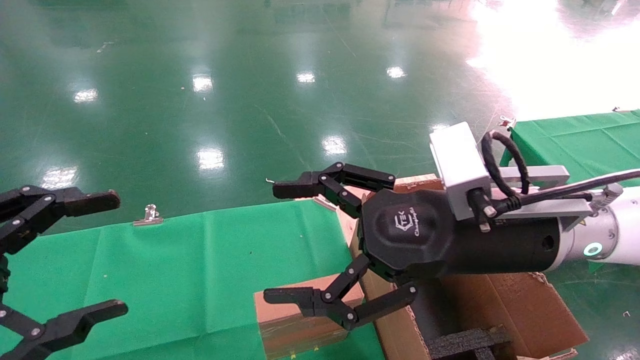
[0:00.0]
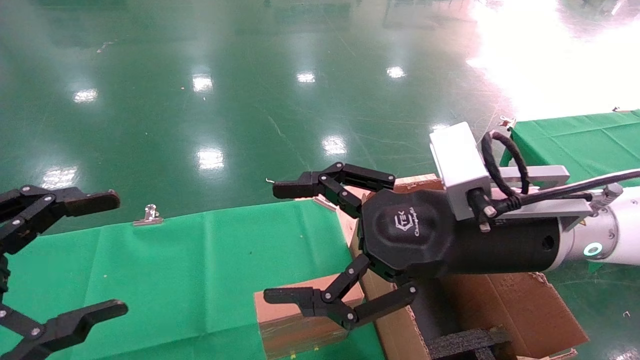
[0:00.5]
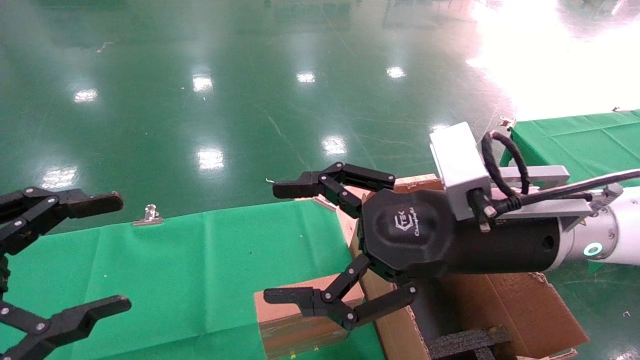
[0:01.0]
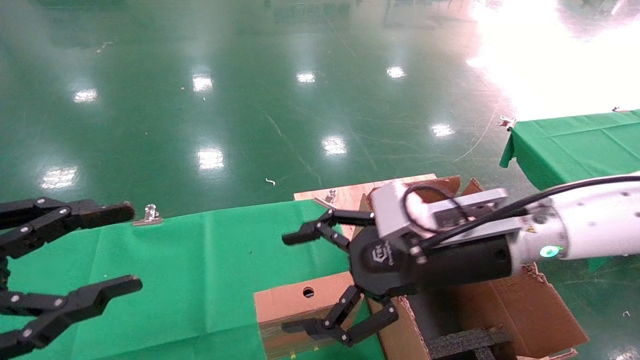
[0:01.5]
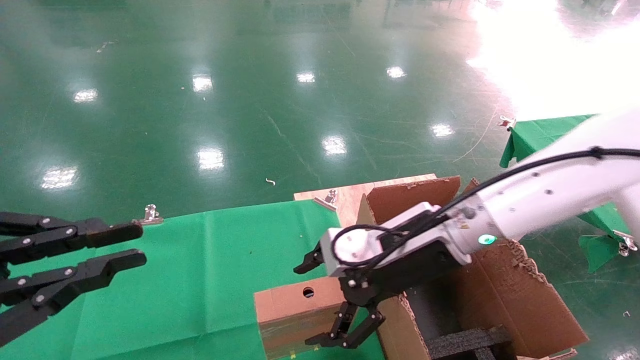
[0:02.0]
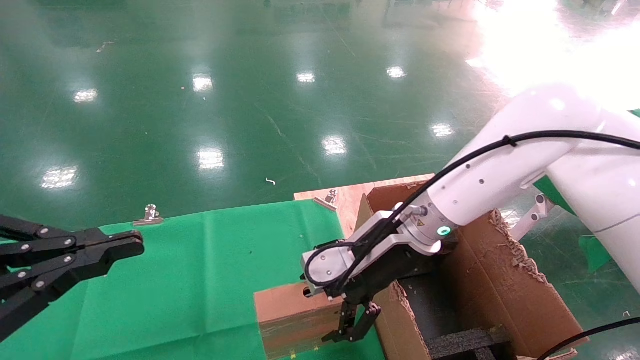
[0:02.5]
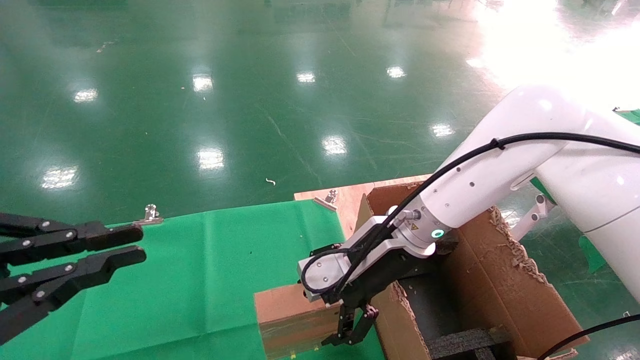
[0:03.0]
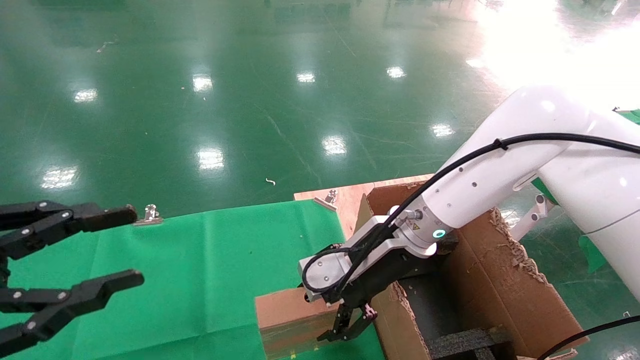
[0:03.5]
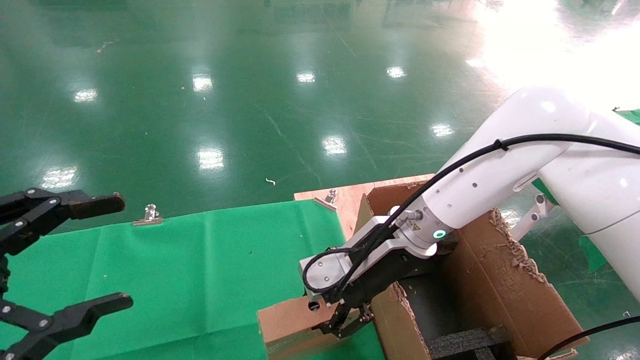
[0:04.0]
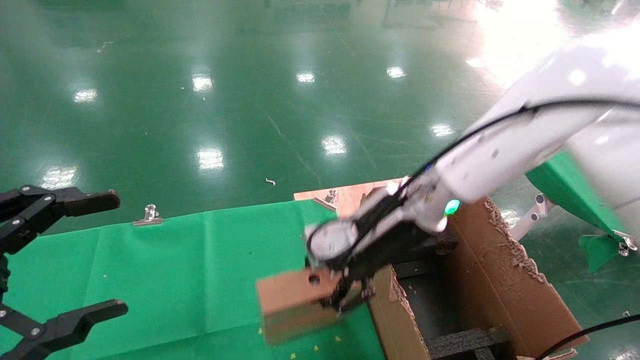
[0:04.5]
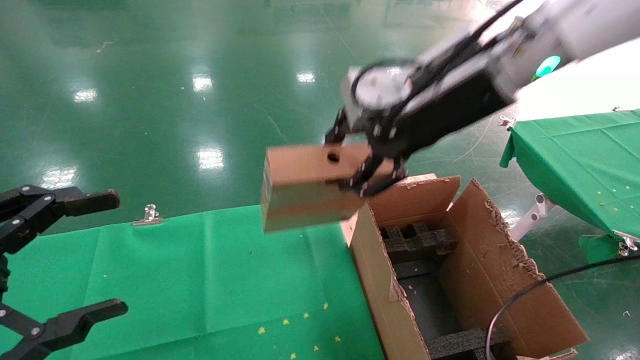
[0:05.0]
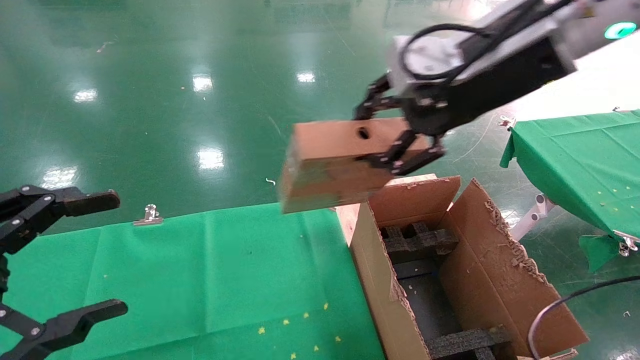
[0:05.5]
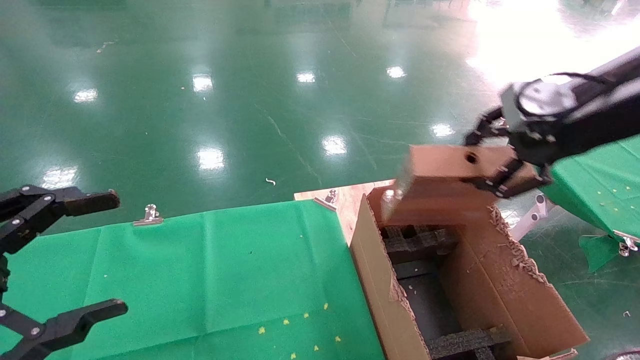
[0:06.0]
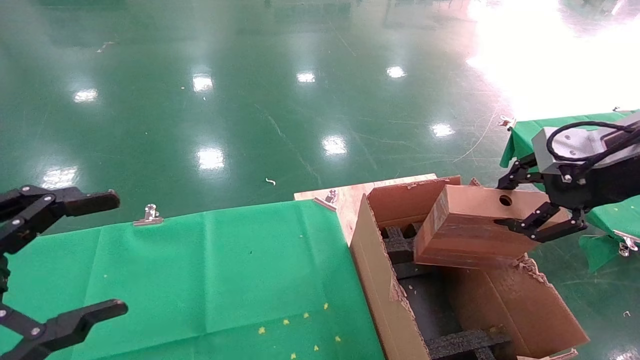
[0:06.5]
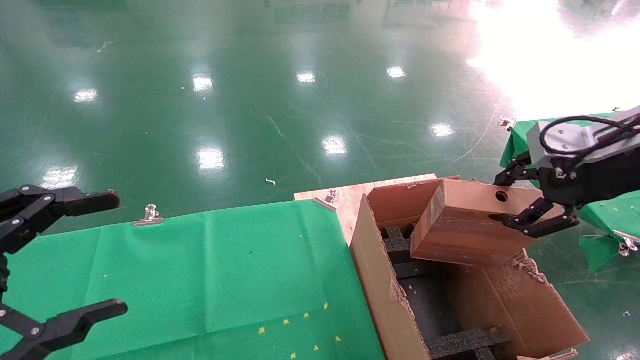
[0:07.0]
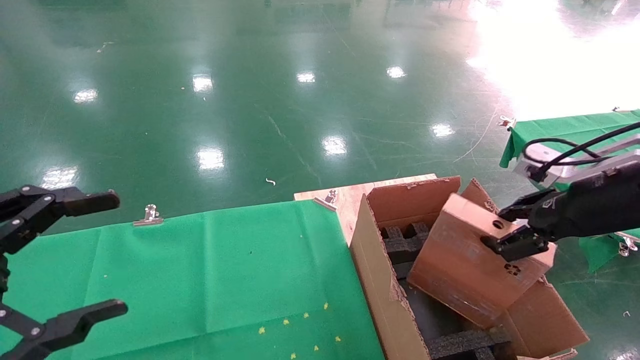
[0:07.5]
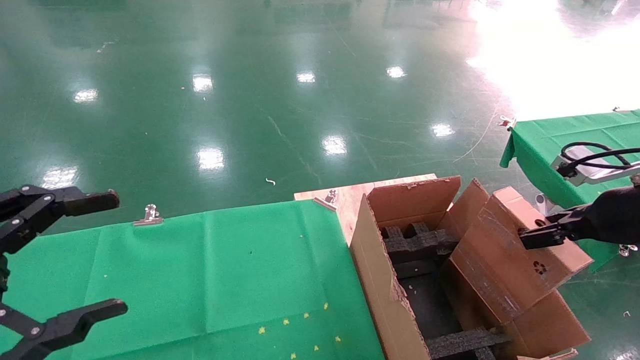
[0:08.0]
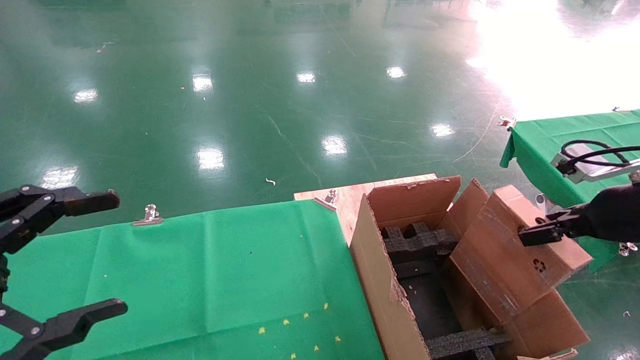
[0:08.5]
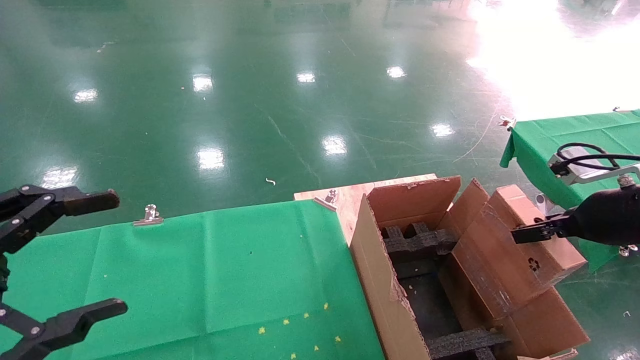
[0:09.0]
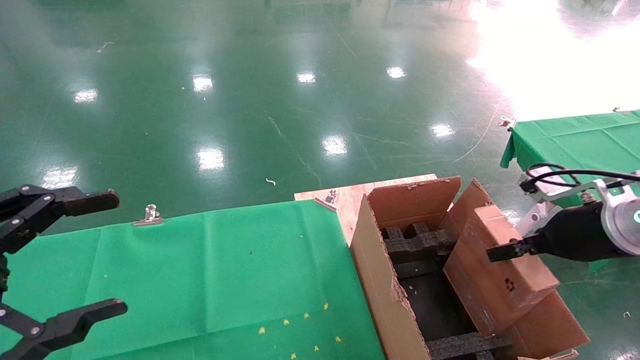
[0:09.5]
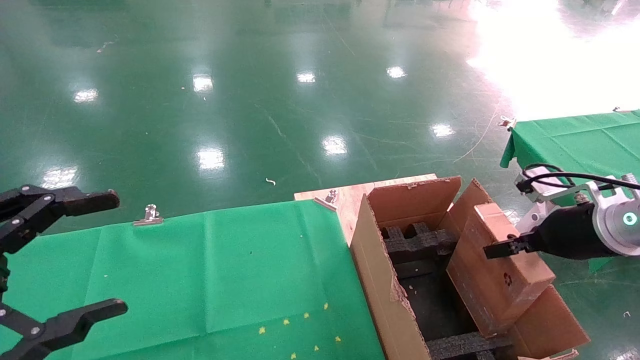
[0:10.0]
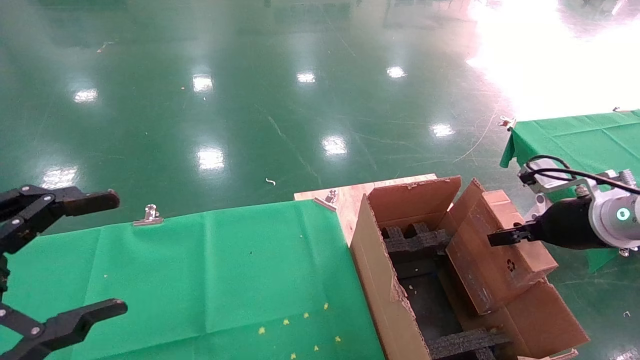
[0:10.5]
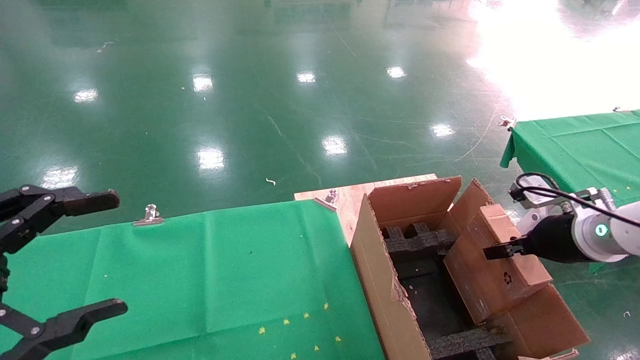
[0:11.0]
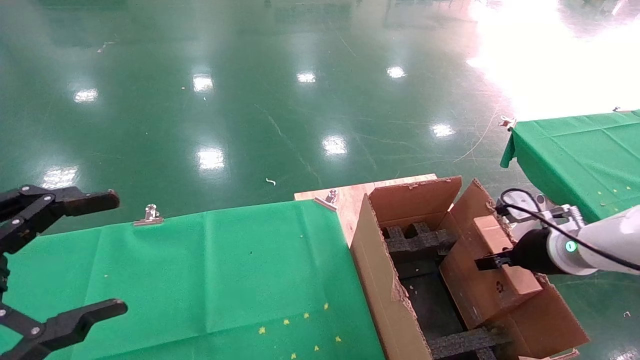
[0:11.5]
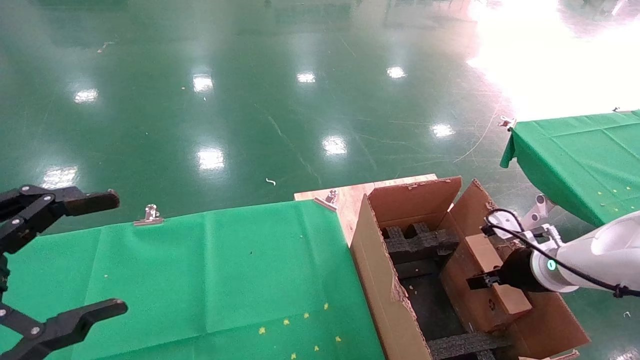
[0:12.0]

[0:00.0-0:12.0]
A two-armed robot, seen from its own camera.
Task of the whole recording: using a robotic arm to pick up a cardboard box and palace it the carton.
Step, 0:01.5 to 0:04.5: Pick up the mouse and the power cord paper box.
0:00.0 to 0:02.0: The right gripper shifts roughly 10 cm forward and downward. The left gripper closes up.
0:02.0 to 0:04.0: The right gripper closes up, while the left gripper opens its fingers.
0:04.0 to 0:06.0: The right gripper shifts roughly 30 cm to the right and upward.
0:06.0 to 0:08.0: The right gripper heads downward and to the right, covering about 15 cm.
0:08.0 to 0:10.0: The right gripper moves roughly 5 cm.
0:10.0 to 0:12.0: The right gripper is displaced downward by about 10 cm.

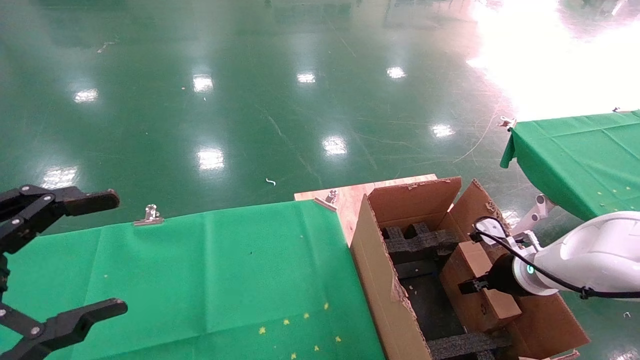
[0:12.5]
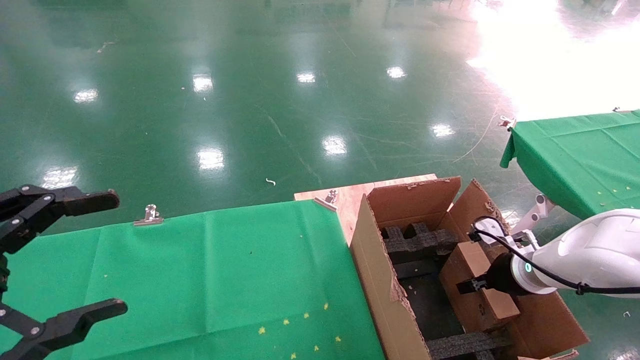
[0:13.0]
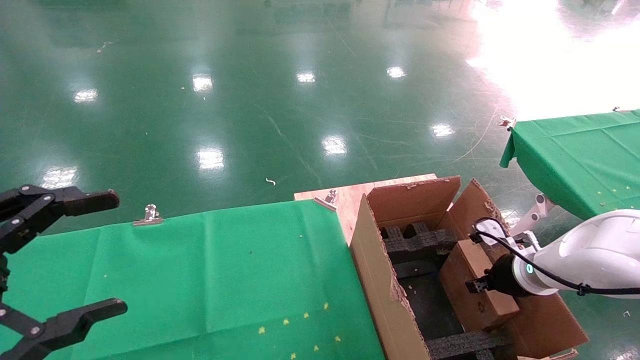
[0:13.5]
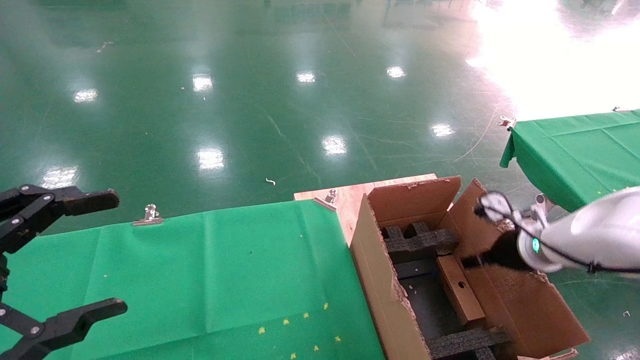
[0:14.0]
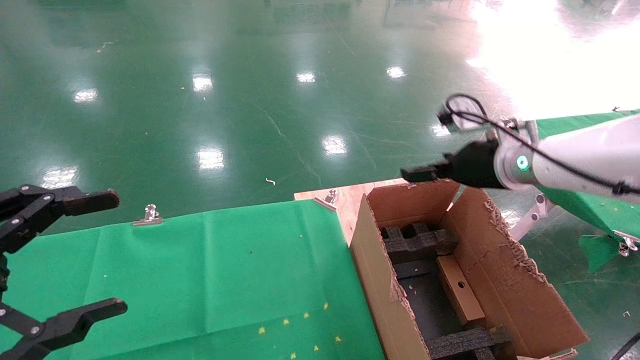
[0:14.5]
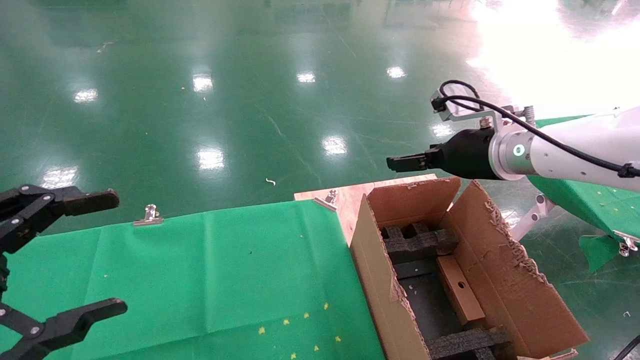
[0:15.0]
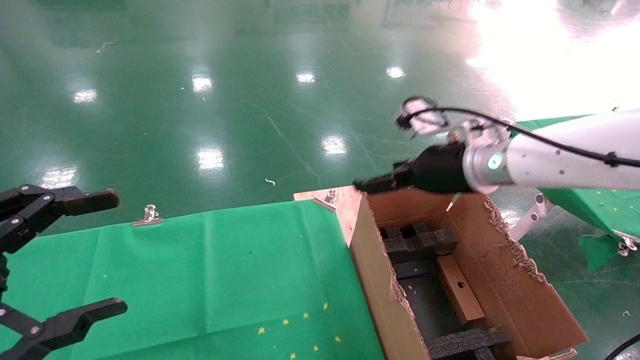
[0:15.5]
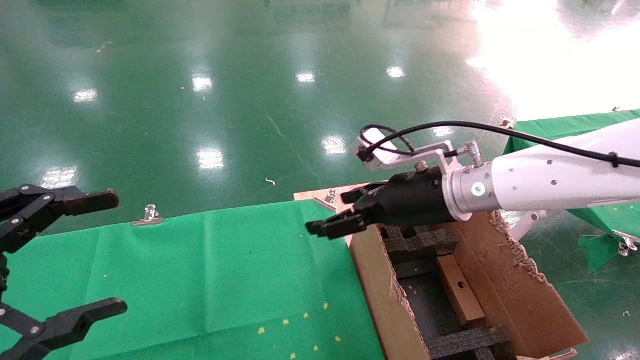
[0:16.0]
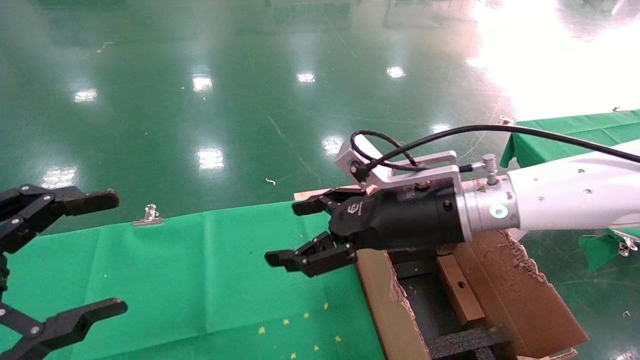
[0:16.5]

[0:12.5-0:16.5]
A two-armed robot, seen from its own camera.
Task of the whole recording: using a robotic arm to pick up a cardboard box and palace it the carton.
0:12.5 to 0:14.5: The right gripper shifts approximately 20 cm upward, and opens up.
0:14.5 to 0:16.5: The right gripper heads to the left and backward, covering approximately 15 cm.

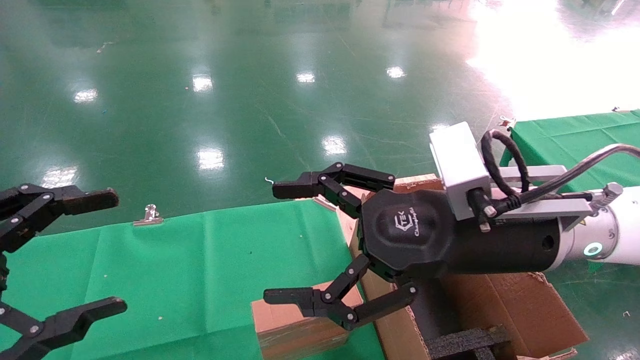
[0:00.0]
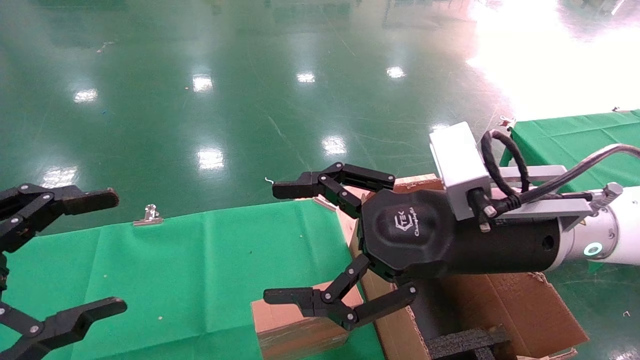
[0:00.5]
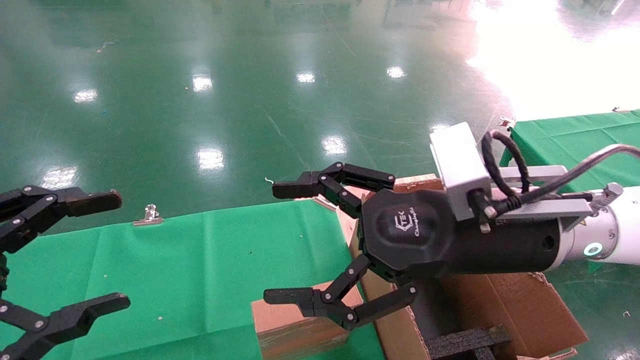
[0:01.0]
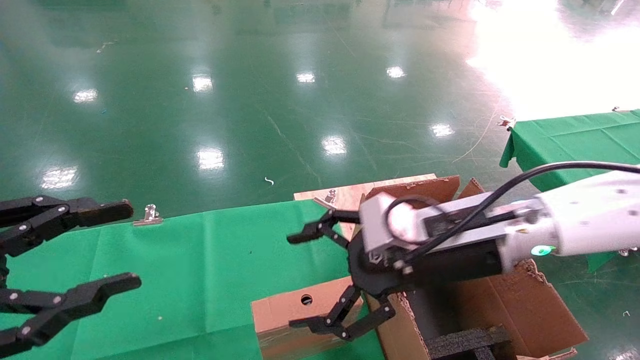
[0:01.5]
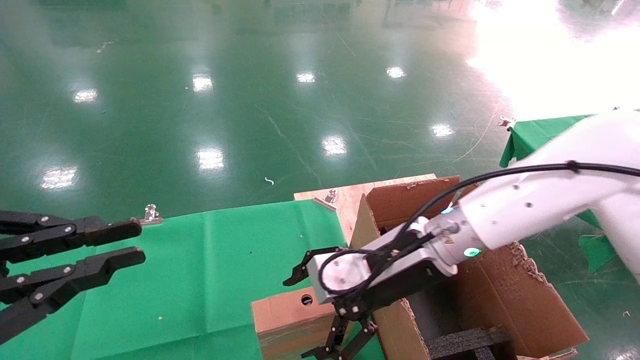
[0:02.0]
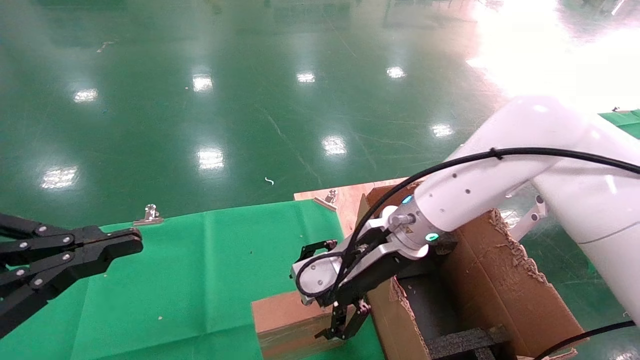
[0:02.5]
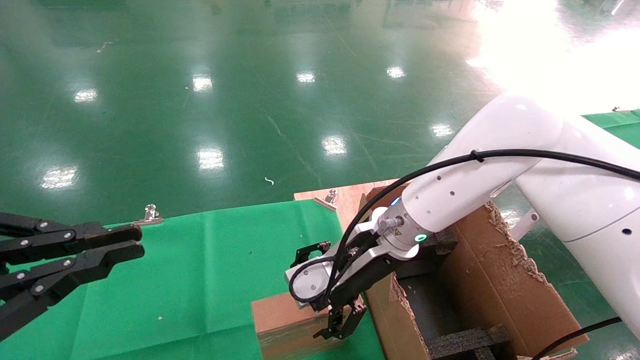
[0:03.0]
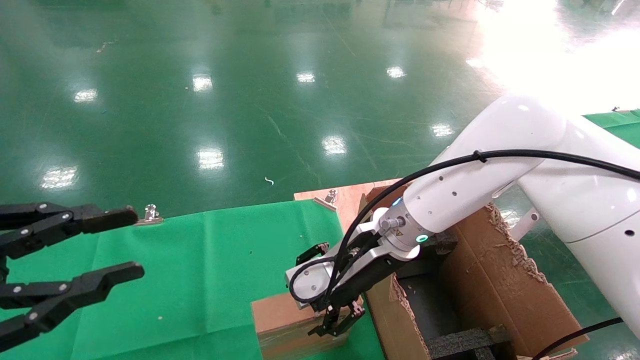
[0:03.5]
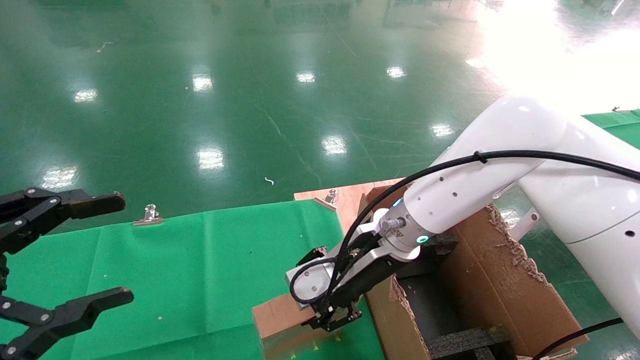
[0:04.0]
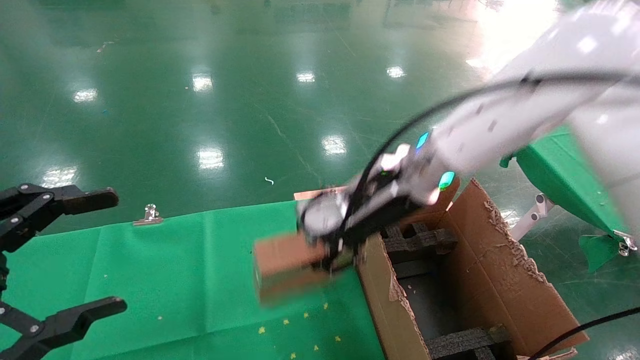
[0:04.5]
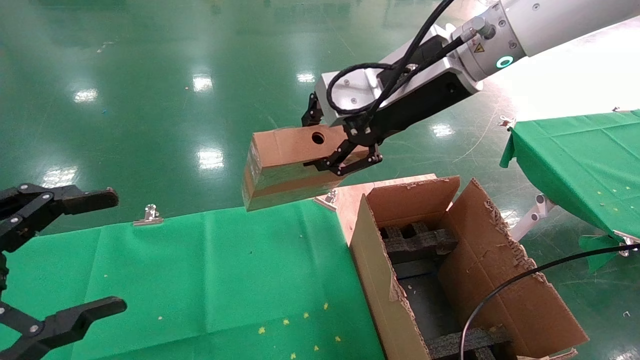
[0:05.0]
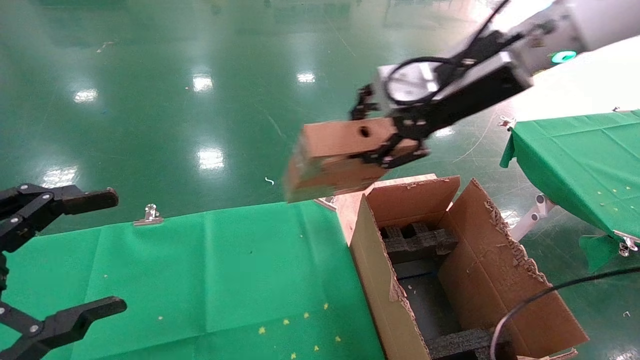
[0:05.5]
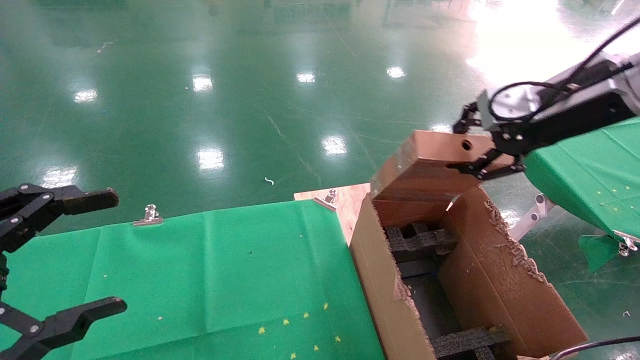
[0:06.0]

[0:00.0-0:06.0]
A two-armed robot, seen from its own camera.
Task of the whole recording: using a robotic arm to pick up a cardboard box and palace it the carton.
Step, 0:01.5 to 0:03.5: Pick up the mouse and the power cord paper box.
0:00.0 to 0:02.0: The left gripper closes. The right gripper is displaced forward and downward by approximately 10 cm.
0:02.0 to 0:04.0: The left gripper opens up. The right gripper closes.
0:04.0 to 0:06.0: The right gripper moves to the right and upward, some 30 cm.
